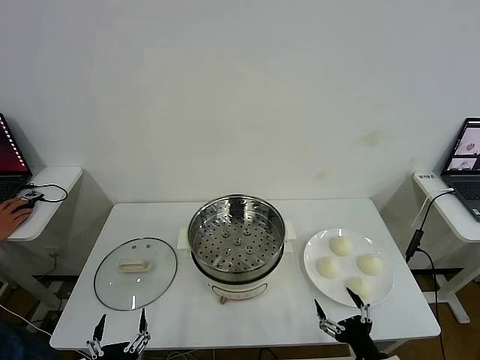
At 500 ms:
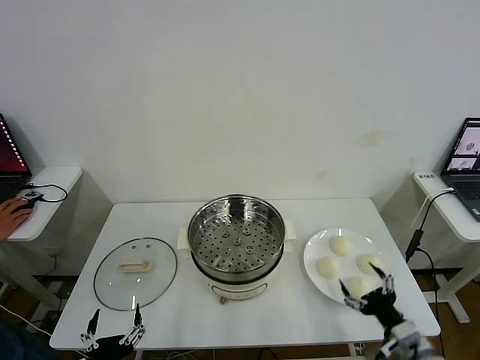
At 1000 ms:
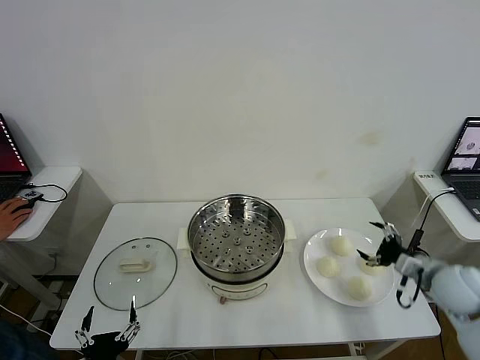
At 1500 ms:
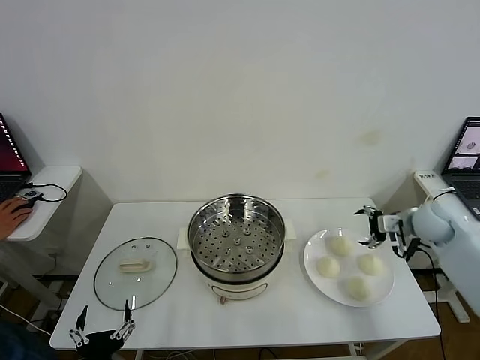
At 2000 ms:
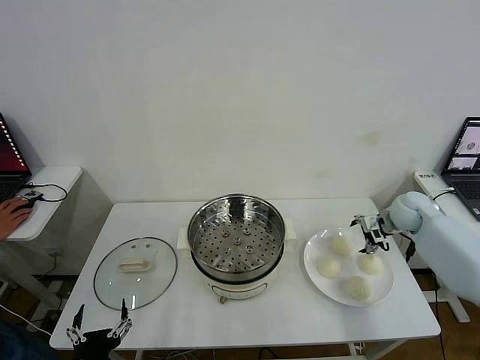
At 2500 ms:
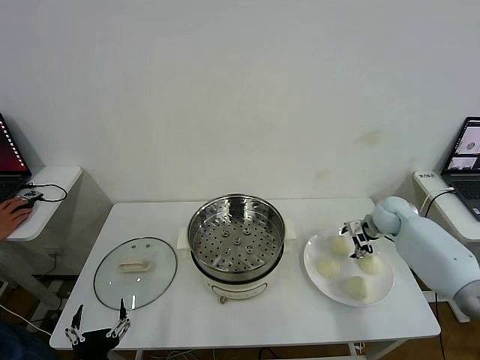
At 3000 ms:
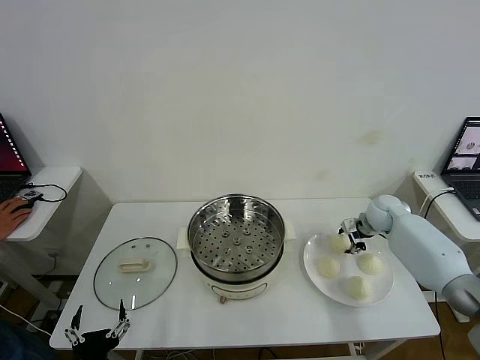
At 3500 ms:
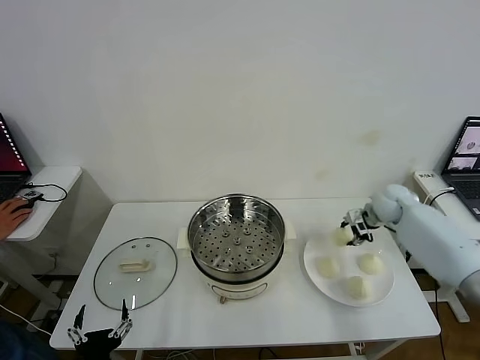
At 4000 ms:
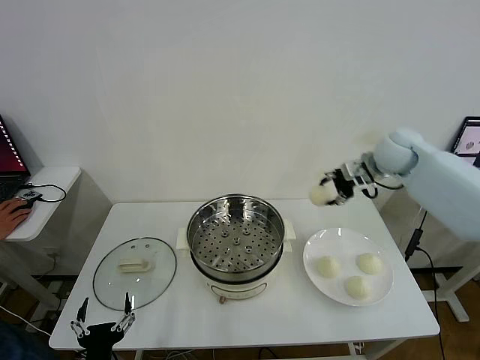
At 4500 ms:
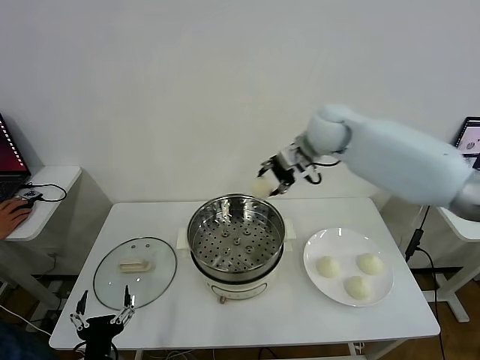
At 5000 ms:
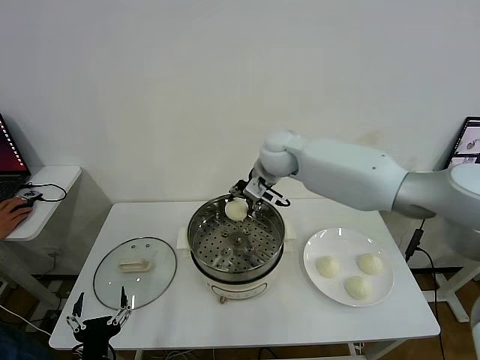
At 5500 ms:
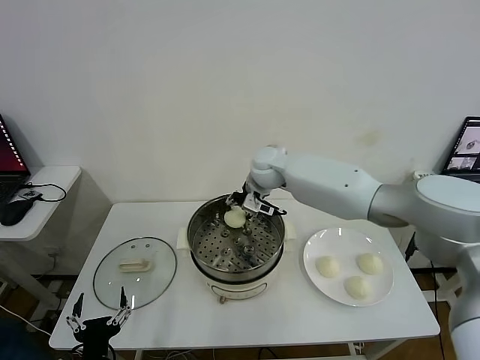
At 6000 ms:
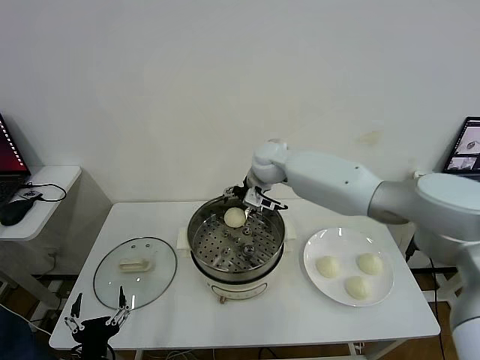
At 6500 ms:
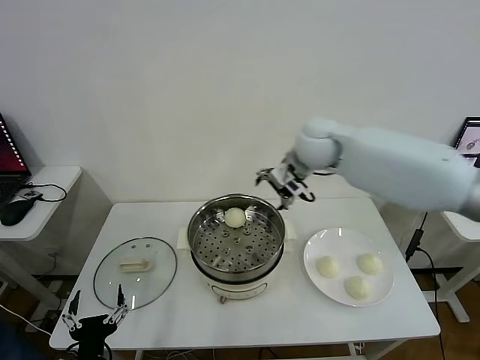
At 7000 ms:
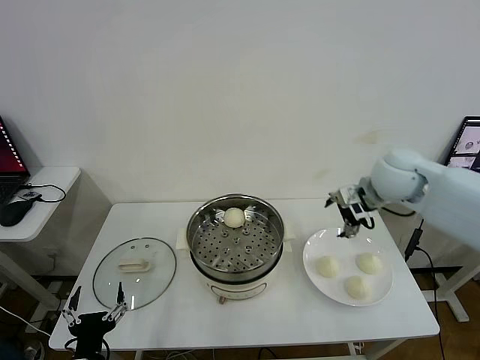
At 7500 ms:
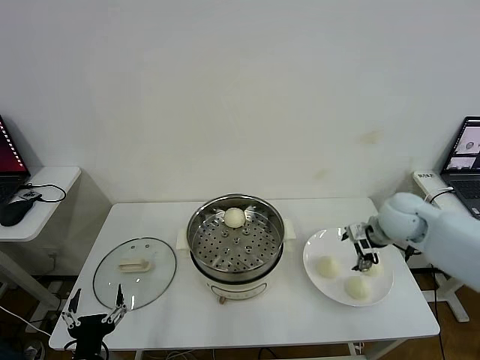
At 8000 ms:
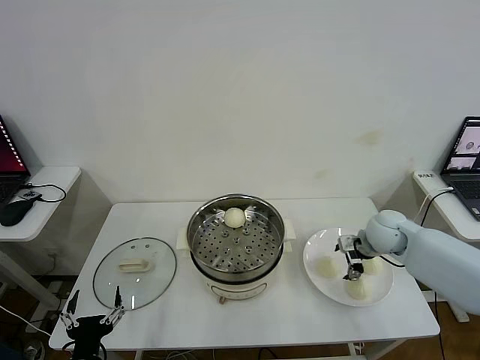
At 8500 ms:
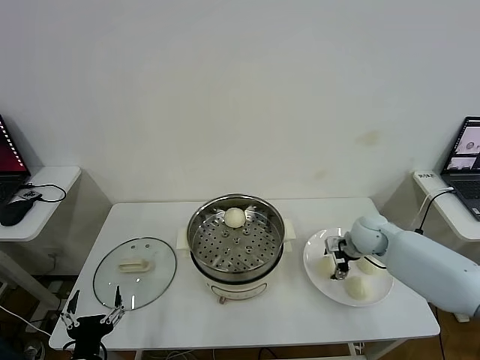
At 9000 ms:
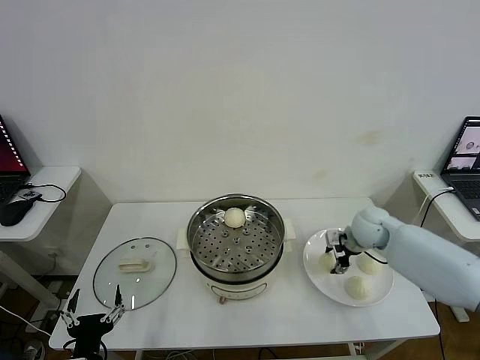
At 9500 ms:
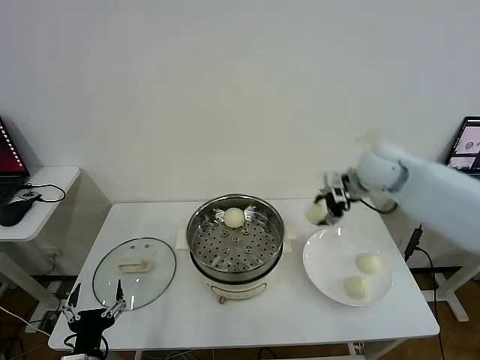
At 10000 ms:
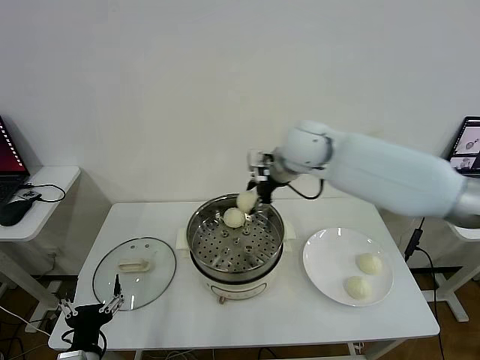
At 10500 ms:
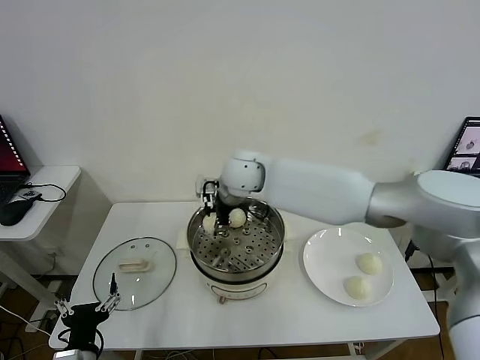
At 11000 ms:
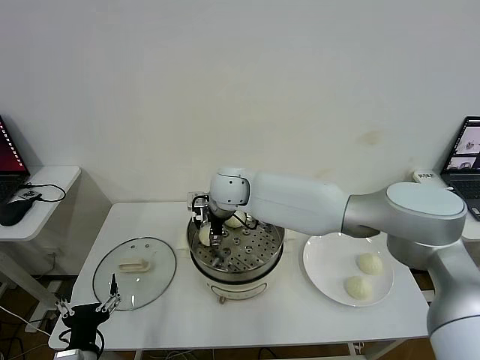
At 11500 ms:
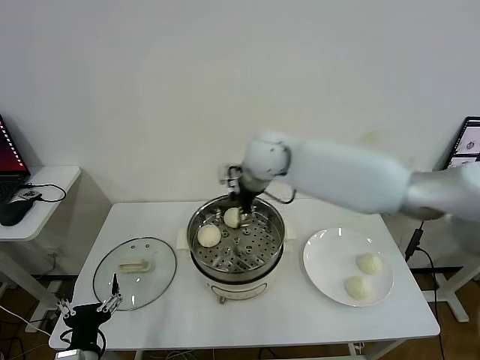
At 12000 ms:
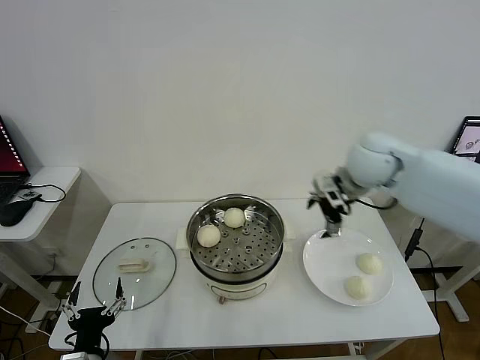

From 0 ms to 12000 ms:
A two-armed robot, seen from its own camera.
Step, from 0 ms to 3000 ms: Grasp the baozi in the plate with right gripper.
Step, from 3500 ms to 5500 ms: Place the baozi on the steamer with right gripper.
Step, from 6000 ms to 8500 ms: Grasp the baozi in the plate with right gripper.
Step, from 9000 ms to 11000 ms: Place the baozi on the steamer with right gripper.
From 2000 ms to 4000 ms: The right gripper travels upward and to the left by approximately 25 cm, and closes up.
From 4000 ms to 6000 ms: The right gripper shifts roughly 20 cm to the left, and opens its fingers.
From 6000 ms to 8000 ms: The right gripper goes about 30 cm to the right, downward and backward.
From 8000 ms to 10000 ms: The right gripper goes some 30 cm to the left and upward, and closes its fingers.
From 10000 ms to 12000 ms: The right gripper goes roughly 20 cm to the right, and opens its fingers.

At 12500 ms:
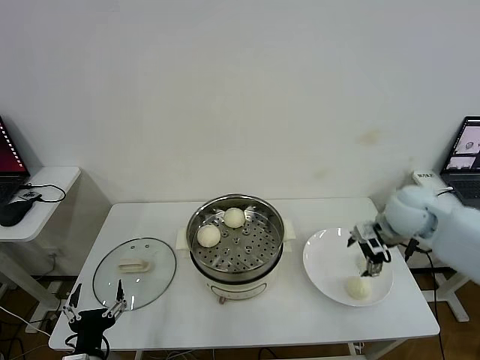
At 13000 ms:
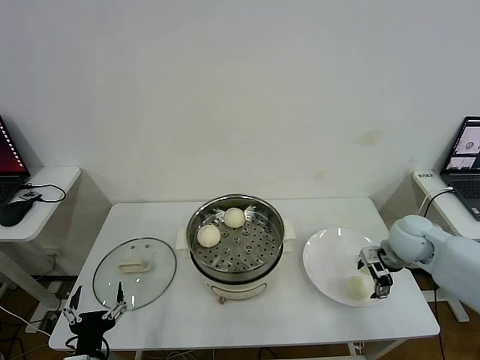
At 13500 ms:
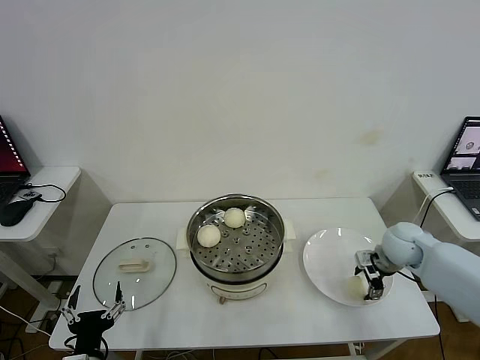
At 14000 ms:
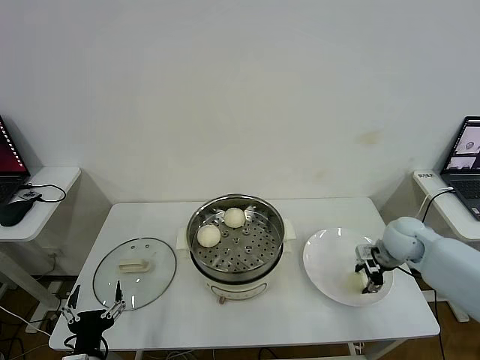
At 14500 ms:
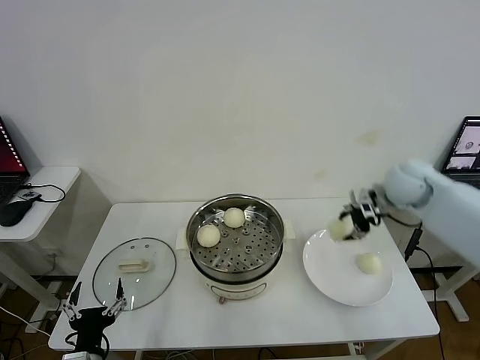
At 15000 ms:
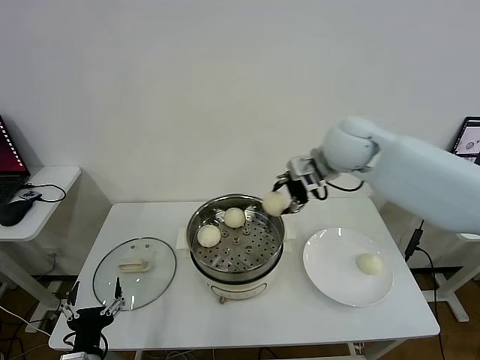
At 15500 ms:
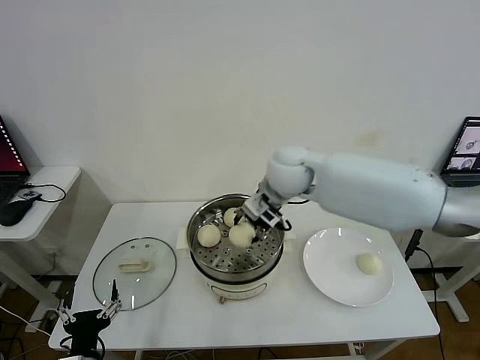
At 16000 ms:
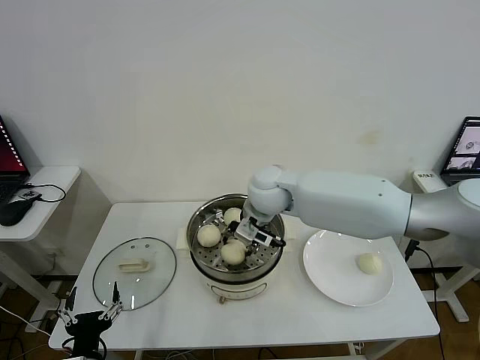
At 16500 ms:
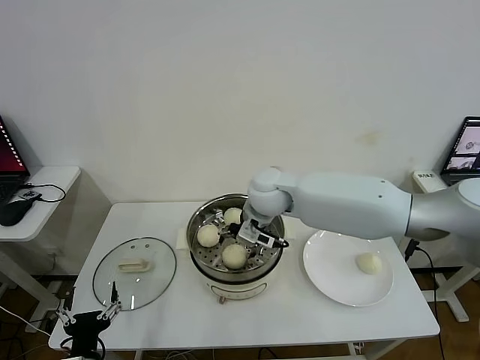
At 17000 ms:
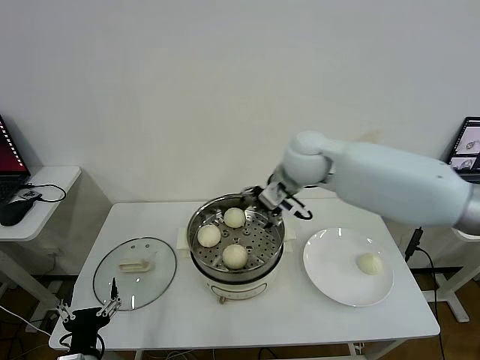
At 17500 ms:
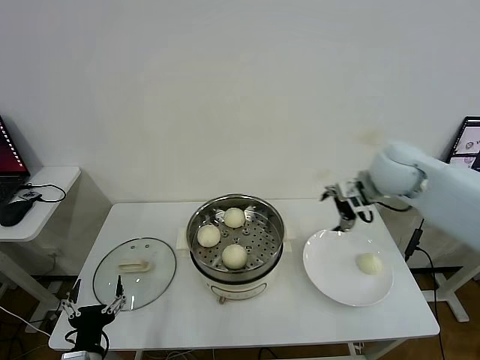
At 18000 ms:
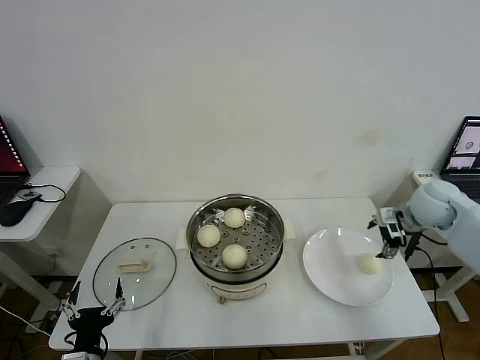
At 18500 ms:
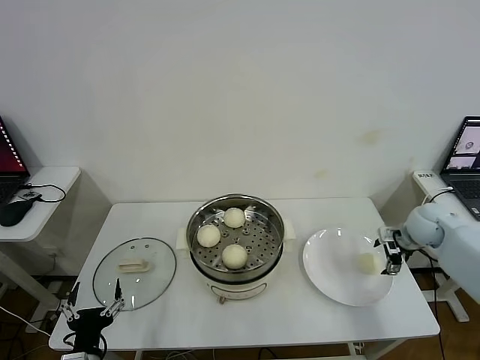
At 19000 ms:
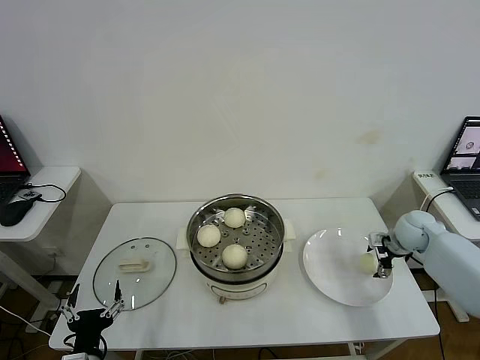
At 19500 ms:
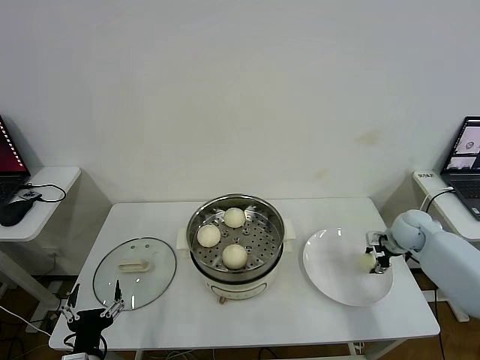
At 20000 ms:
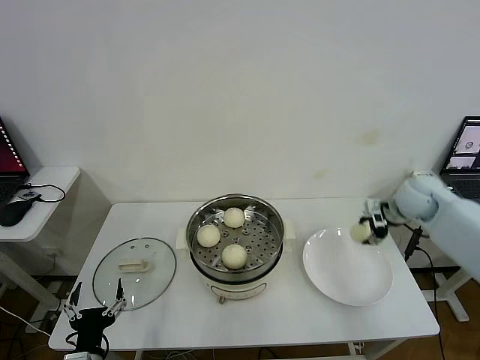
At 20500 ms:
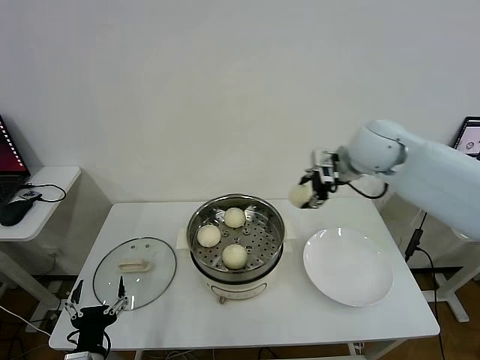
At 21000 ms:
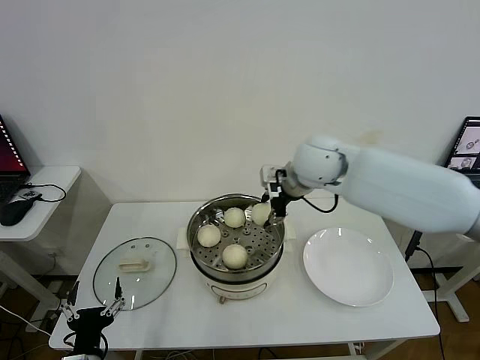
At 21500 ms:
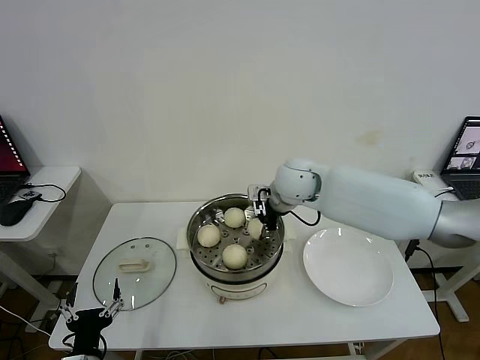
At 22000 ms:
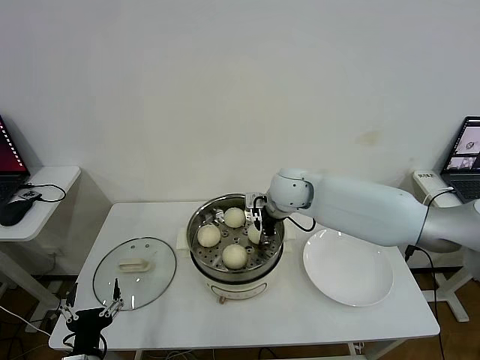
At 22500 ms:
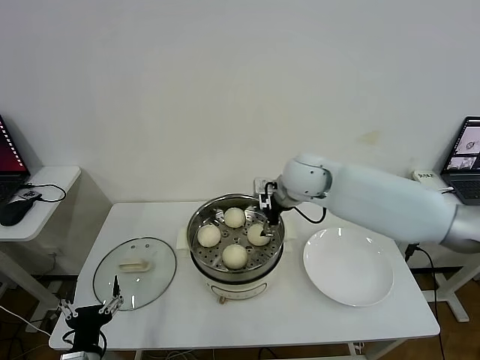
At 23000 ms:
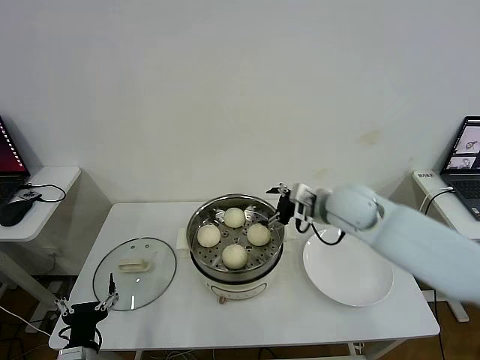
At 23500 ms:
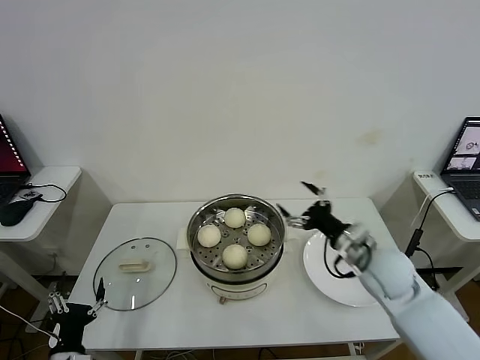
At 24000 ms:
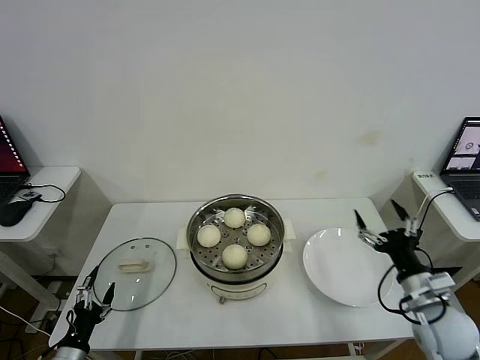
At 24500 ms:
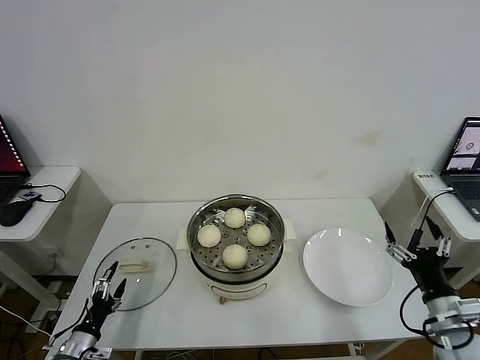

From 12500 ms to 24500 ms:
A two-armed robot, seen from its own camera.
Step, from 14000 ms to 16000 ms: Place the baozi on the steamer with right gripper.
Step, from 17000 ms to 19000 ms: Grasp the baozi in the plate with right gripper.
Step, from 19500 ms to 22000 ms: Place the baozi on the steamer with right gripper.
From 12500 ms to 14500 ms: The right gripper is displaced upward and forward by approximately 10 cm, and closes up.
From 14500 ms to 16500 ms: The right gripper moves to the left, about 30 cm, and opens its fingers.
From 16500 ms to 18500 ms: The right gripper goes roughly 40 cm to the right.
From 18500 ms to 20500 ms: The right gripper heads upward and to the left, covering roughly 30 cm, and closes its fingers.
From 20500 ms to 22500 ms: The right gripper travels to the left and downward by approximately 15 cm, and opens up.
From 22500 ms to 24500 ms: The left gripper is displaced to the left, downward and forward by about 15 cm. The right gripper heads backward, to the right and downward, covering approximately 40 cm.

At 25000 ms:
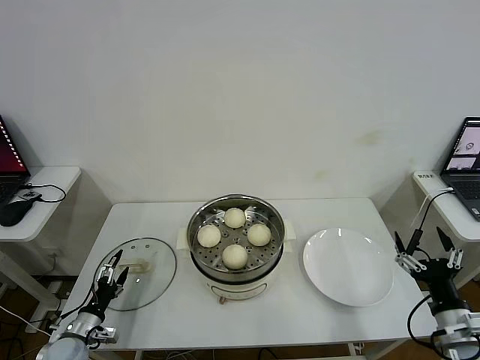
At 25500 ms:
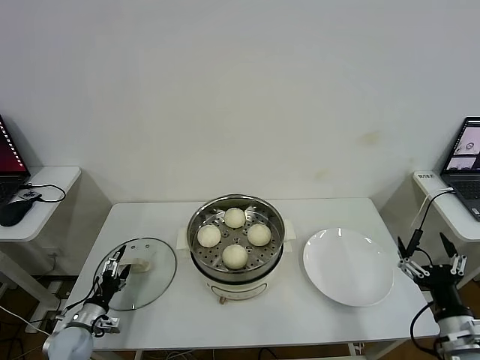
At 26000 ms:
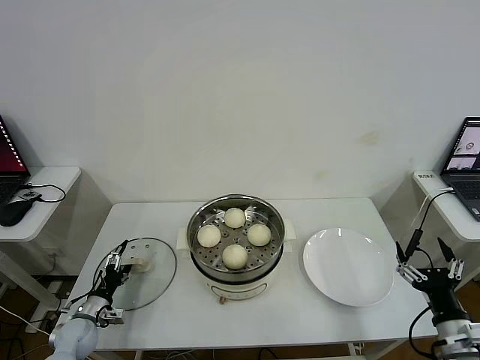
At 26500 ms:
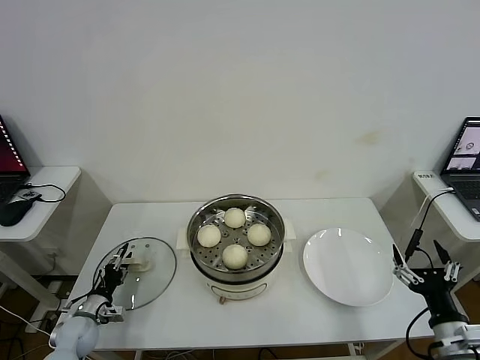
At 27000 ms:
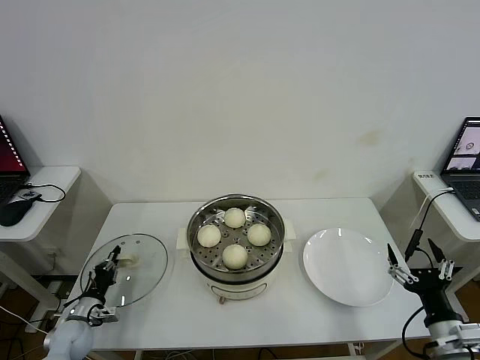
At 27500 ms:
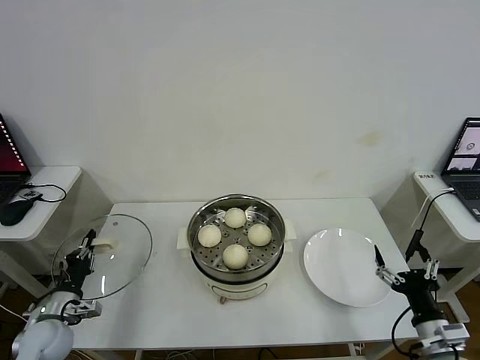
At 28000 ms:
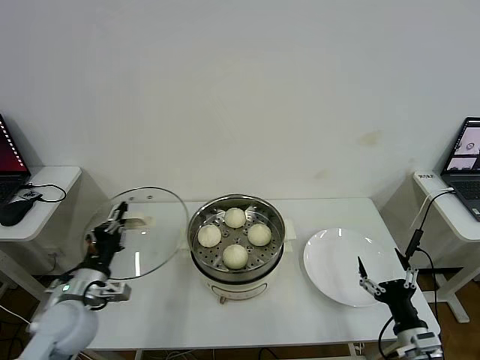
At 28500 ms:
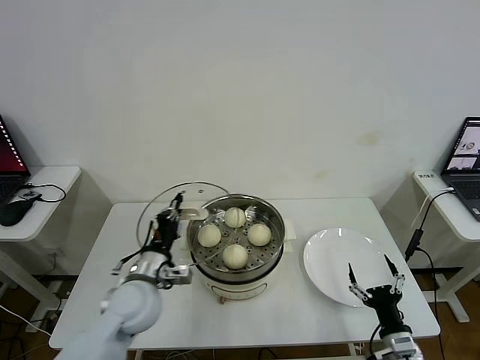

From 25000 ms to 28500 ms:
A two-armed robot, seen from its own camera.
From 25000 ms to 27000 ms: The left gripper heads forward, covering approximately 5 cm, and closes.
From 27000 ms to 28500 ms: The right gripper is displaced downward and to the left by some 10 cm. Meanwhile the left gripper heads to the right and upward, covering about 30 cm.
